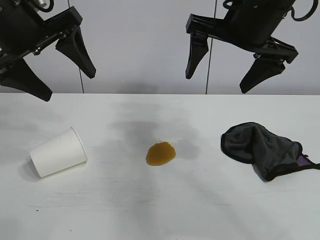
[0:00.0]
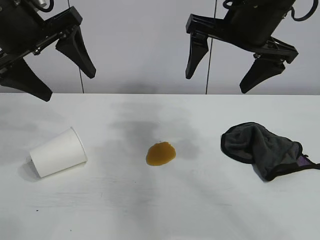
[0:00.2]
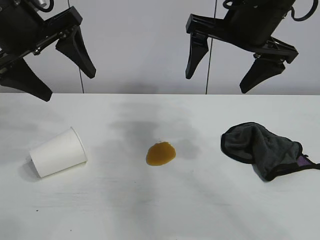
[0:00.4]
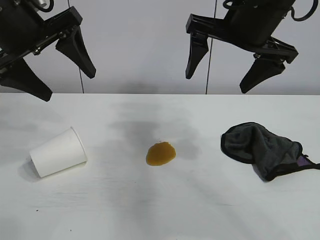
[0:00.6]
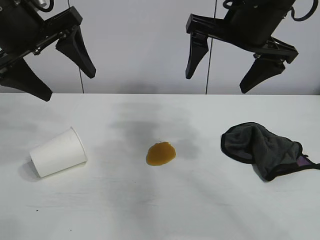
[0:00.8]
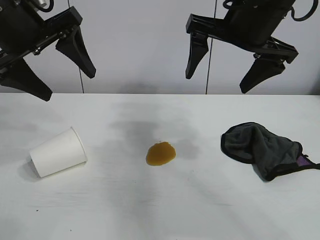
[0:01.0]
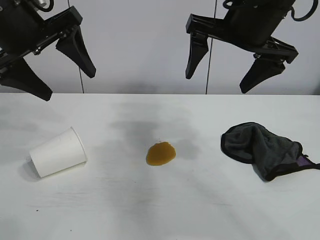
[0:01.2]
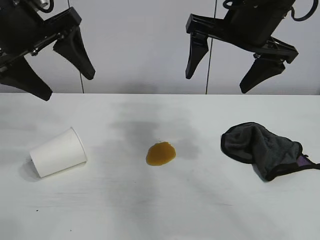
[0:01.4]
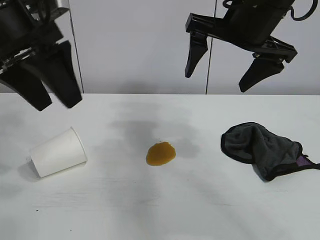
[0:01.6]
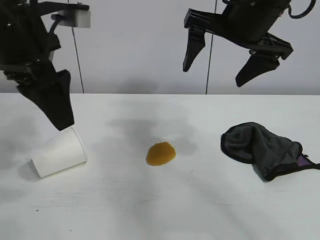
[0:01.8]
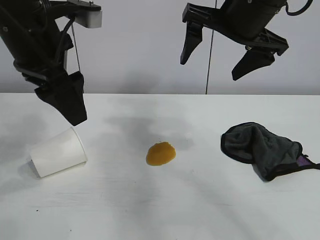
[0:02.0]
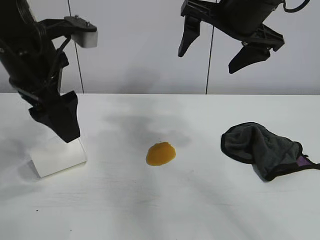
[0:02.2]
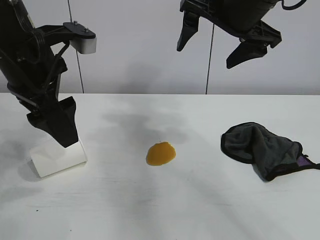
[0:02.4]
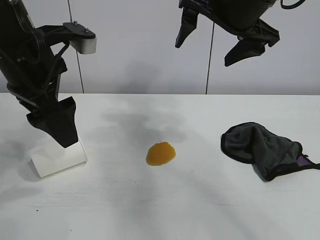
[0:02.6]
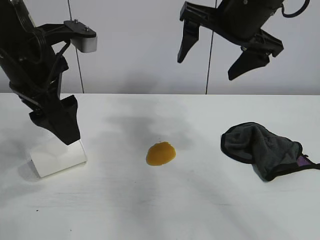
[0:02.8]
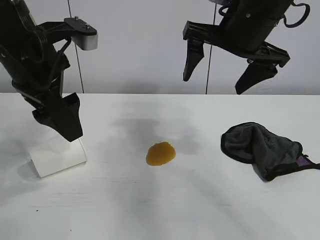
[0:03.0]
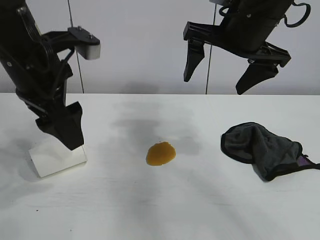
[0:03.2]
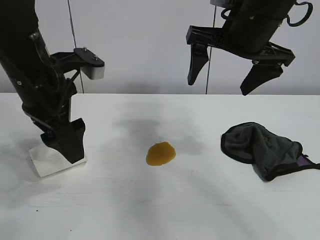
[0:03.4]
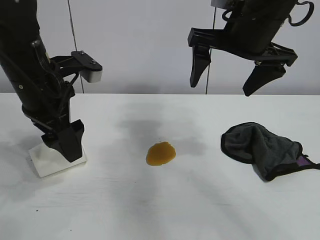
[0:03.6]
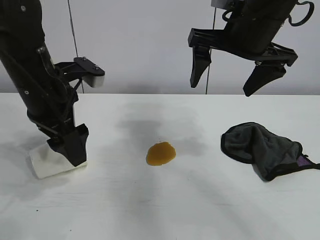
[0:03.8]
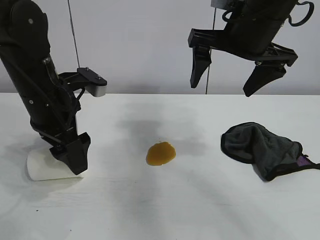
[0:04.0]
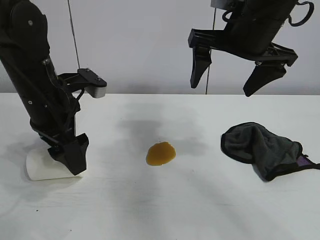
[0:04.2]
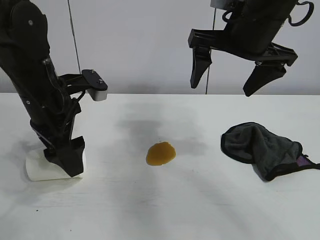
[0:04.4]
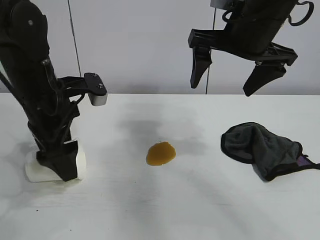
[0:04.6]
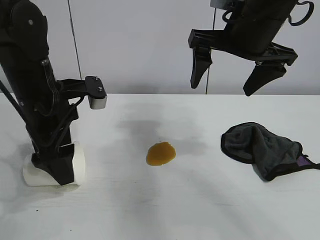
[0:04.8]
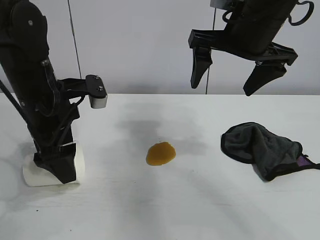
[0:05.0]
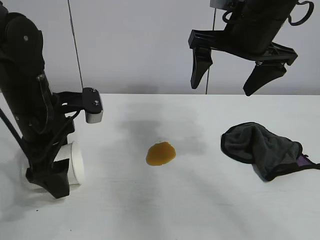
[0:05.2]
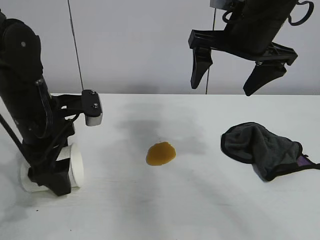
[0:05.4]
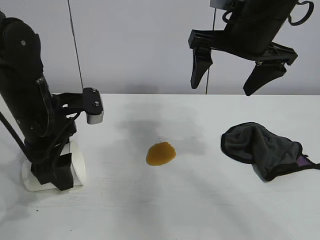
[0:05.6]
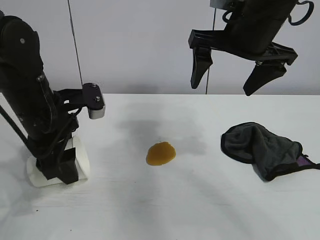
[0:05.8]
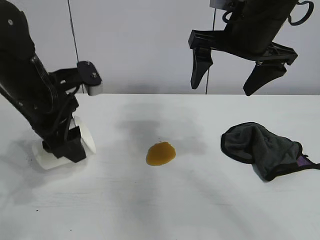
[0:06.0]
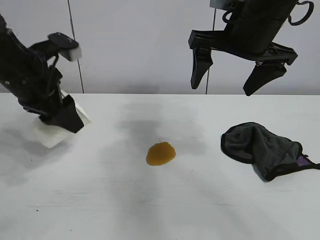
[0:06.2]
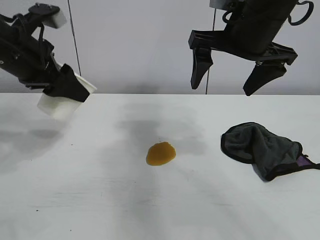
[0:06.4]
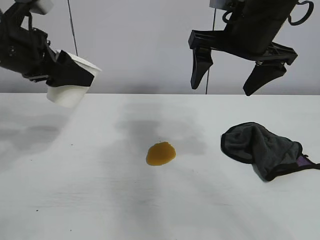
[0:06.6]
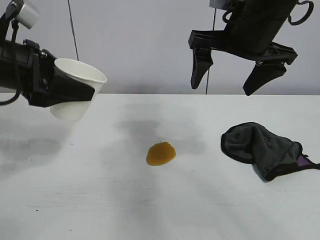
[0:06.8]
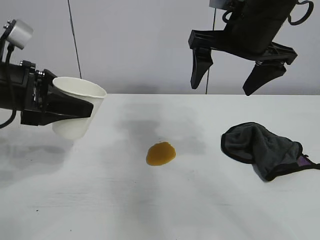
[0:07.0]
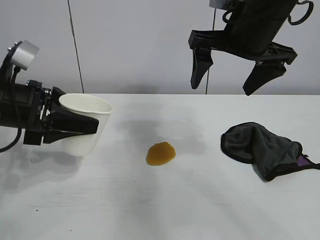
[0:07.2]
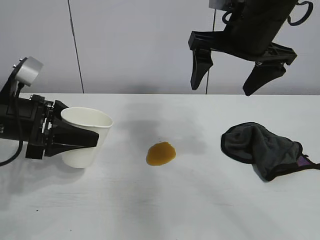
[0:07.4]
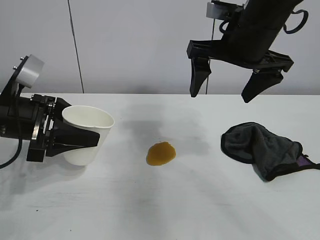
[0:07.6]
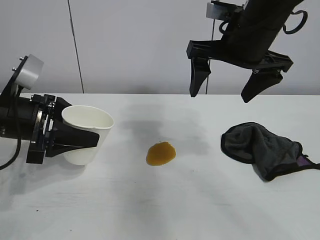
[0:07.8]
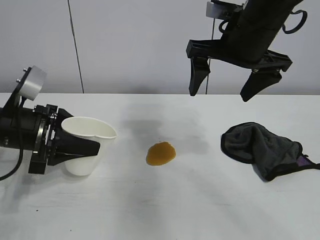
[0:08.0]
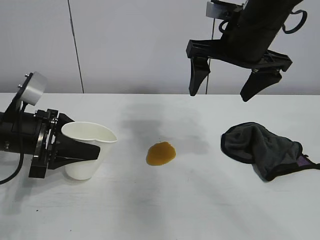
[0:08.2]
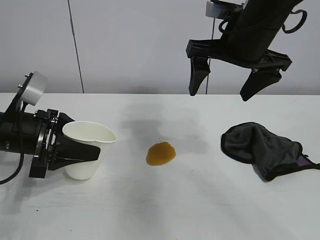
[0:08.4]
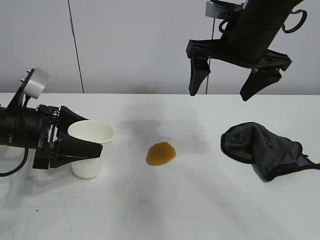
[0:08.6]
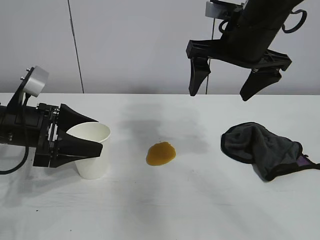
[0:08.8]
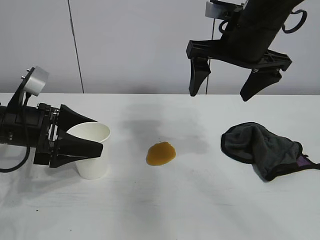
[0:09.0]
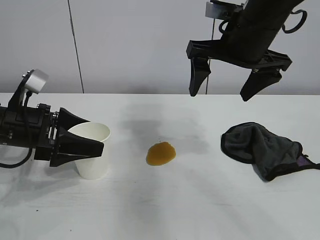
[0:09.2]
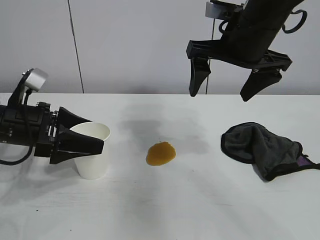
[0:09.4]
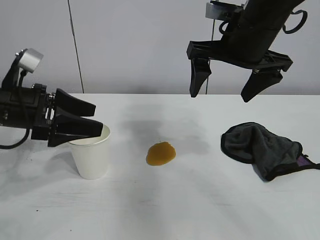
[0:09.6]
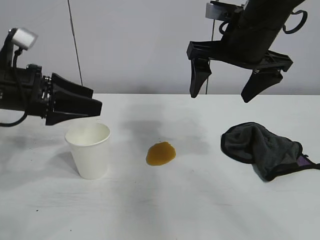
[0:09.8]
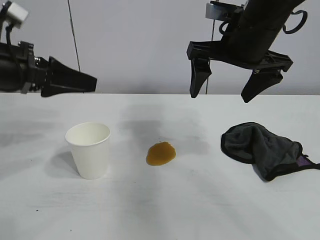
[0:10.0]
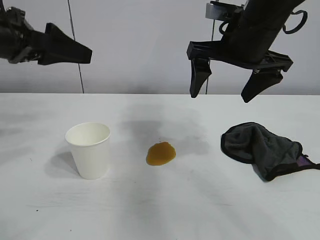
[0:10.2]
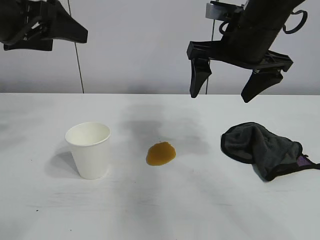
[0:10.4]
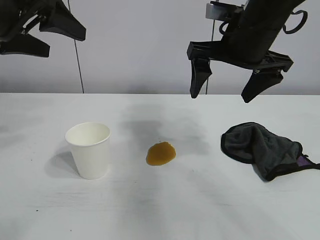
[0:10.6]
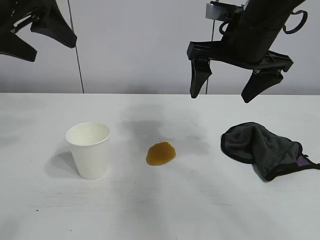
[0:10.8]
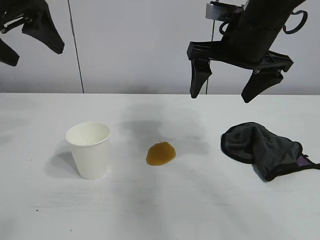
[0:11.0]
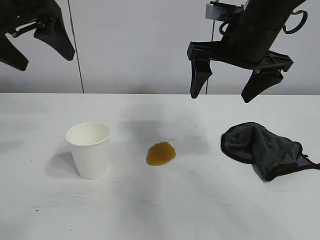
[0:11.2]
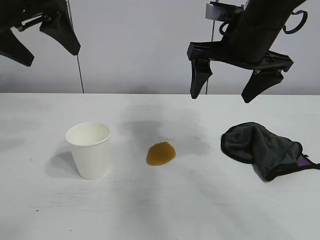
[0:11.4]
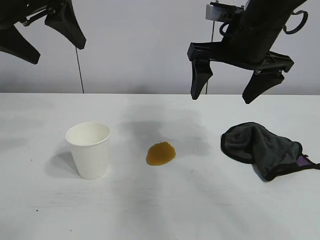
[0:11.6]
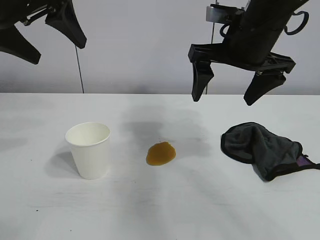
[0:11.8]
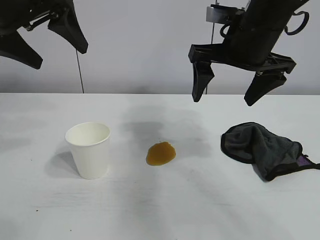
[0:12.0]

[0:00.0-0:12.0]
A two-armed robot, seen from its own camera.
Task of the whole recording: the left gripper pick up the fallen cup and place it upright, the right gripper grasp the black rag and wipe the stain on the table, the right gripper put the black rag back in its original position.
Step, 0:01.4 to 0:05.8: Grasp the paper cup with left gripper.
Step, 0:06.0 to 0:09.4: Stand the paper cup upright with left gripper.

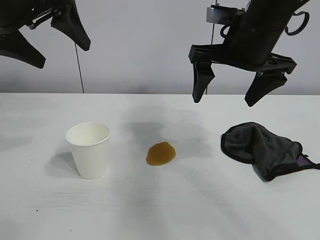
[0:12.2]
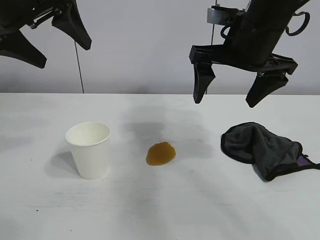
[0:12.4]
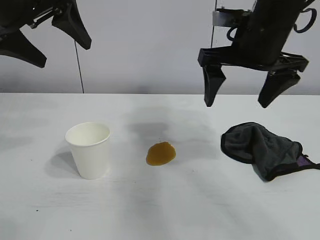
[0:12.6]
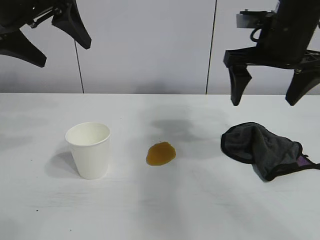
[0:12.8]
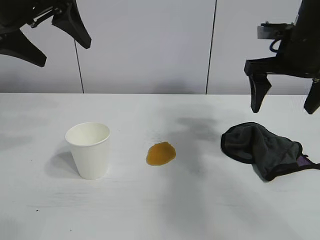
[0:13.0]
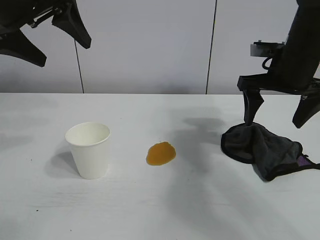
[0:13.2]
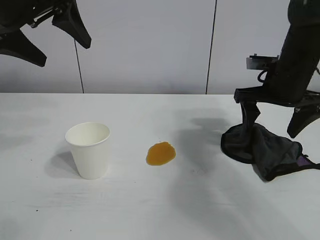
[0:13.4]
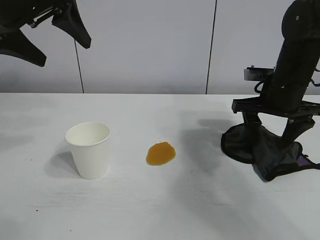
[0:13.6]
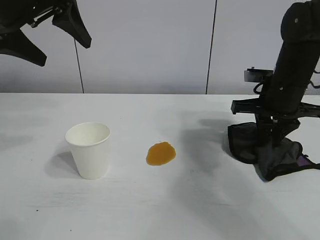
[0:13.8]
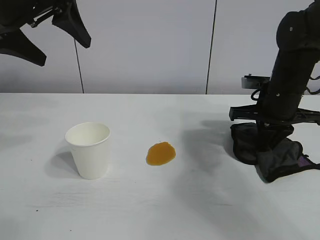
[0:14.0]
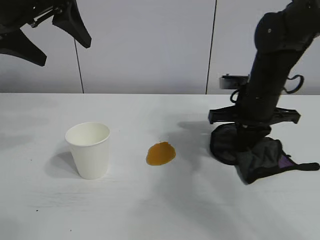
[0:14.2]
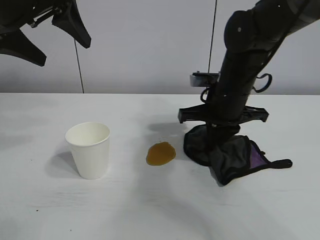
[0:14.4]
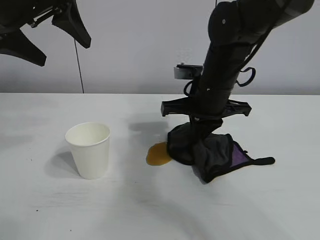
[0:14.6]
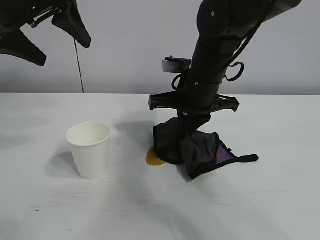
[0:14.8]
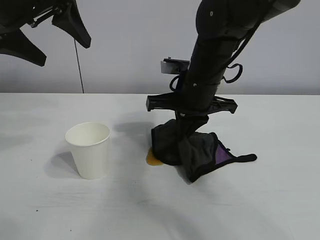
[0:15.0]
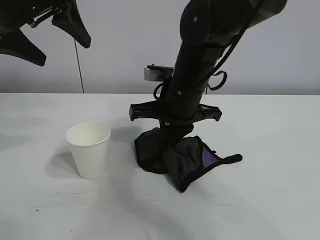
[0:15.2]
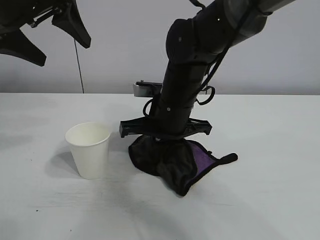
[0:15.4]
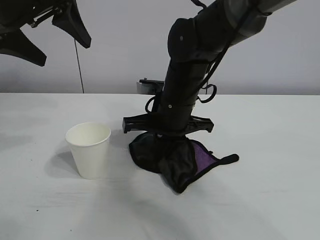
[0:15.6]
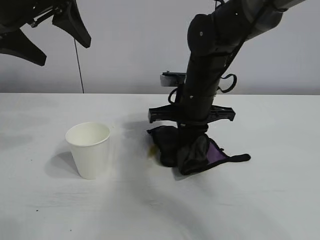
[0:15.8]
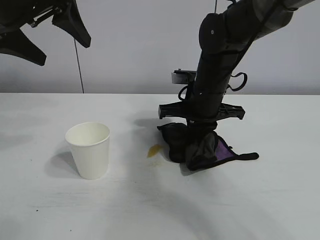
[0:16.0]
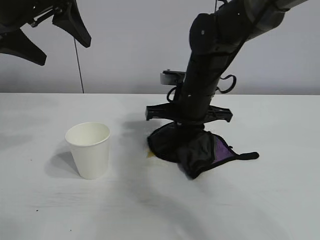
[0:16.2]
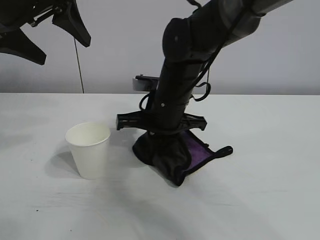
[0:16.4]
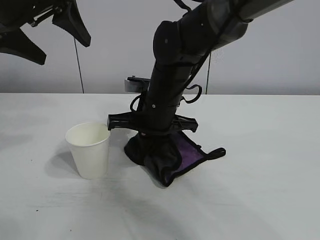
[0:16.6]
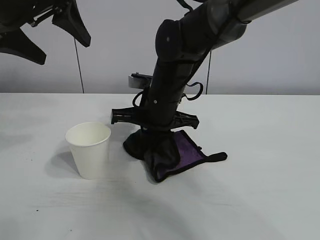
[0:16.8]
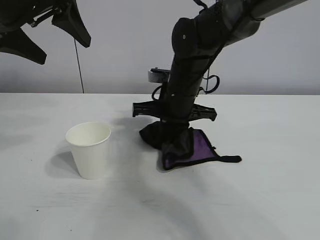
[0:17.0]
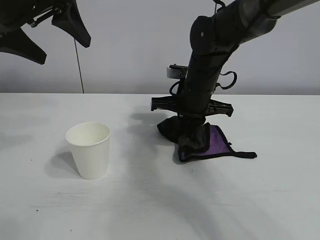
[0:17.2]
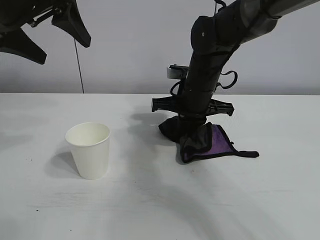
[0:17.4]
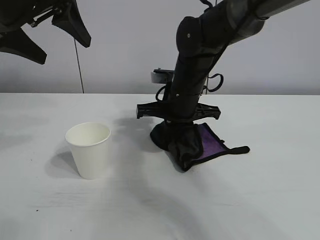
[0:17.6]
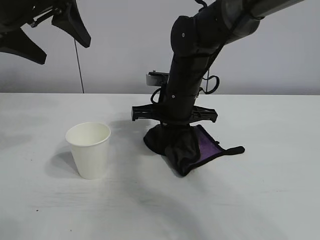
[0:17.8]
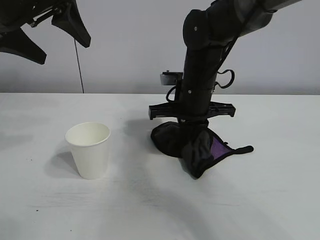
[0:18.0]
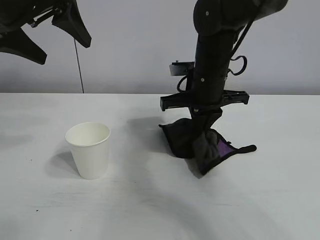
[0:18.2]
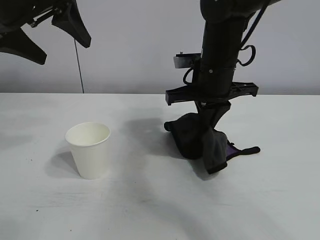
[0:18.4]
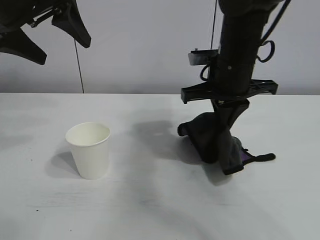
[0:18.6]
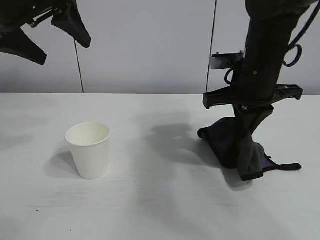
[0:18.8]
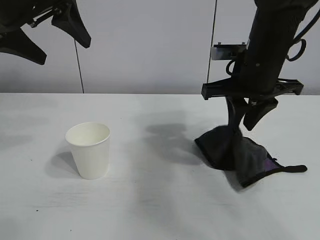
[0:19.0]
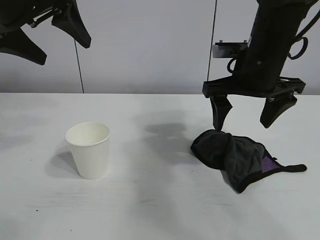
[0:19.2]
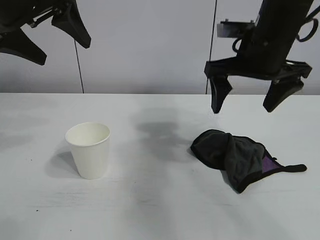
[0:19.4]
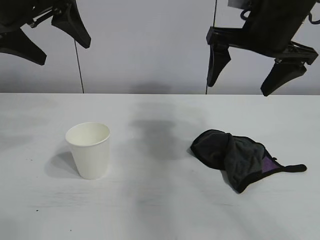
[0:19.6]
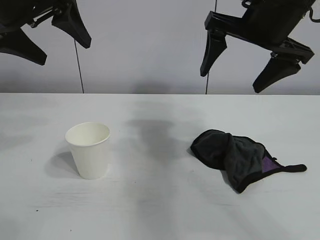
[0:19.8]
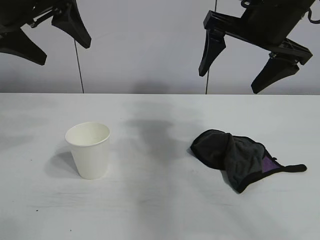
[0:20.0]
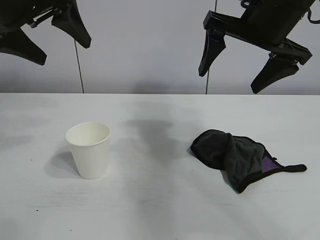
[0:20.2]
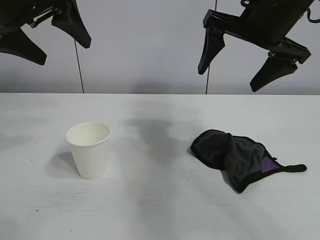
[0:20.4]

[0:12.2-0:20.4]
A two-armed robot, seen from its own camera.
Task of the whole recording: the left gripper pick up the fallen cup and place it upright, the right gripper grasp the black rag and wipe the stain on the table, the right gripper put the black rag back in its original position.
Step, 0:14.0 to 0:18.8: Wipe the stains off the table with the rag with right gripper.
